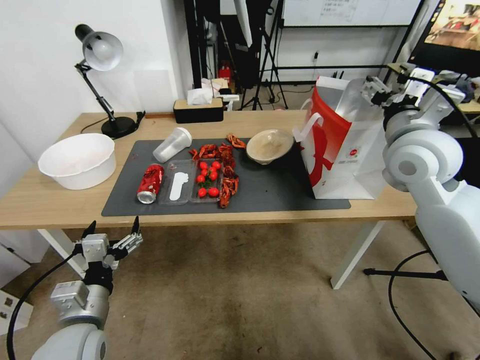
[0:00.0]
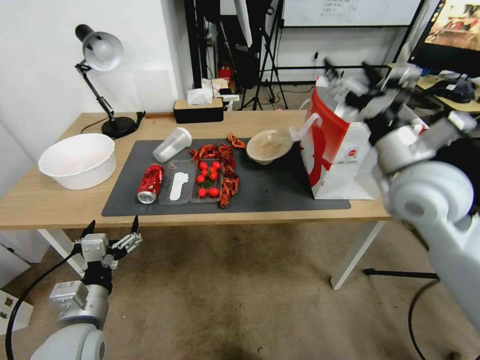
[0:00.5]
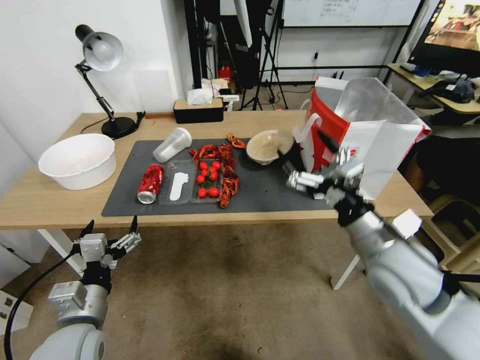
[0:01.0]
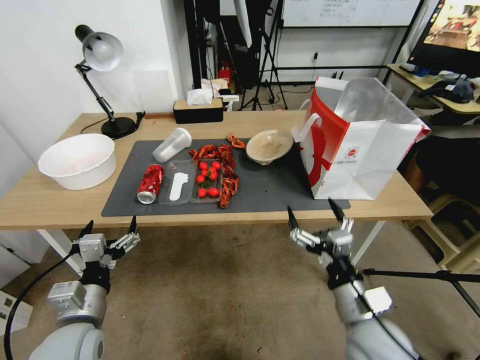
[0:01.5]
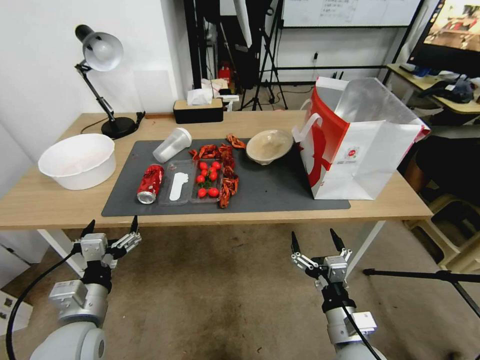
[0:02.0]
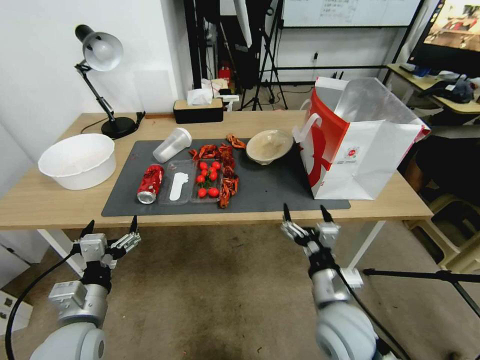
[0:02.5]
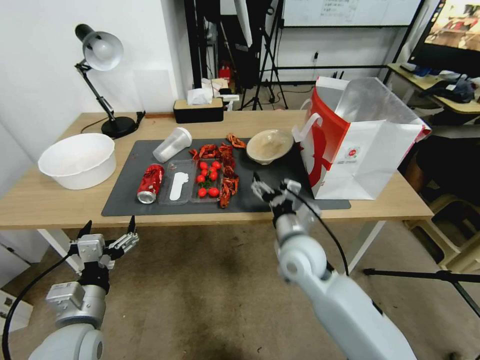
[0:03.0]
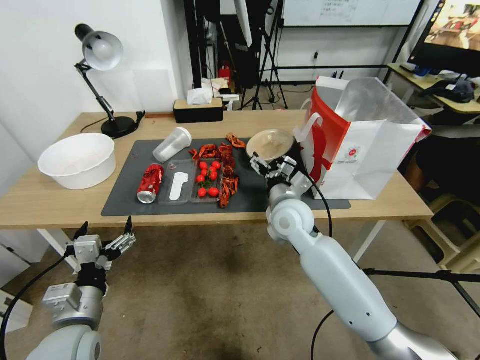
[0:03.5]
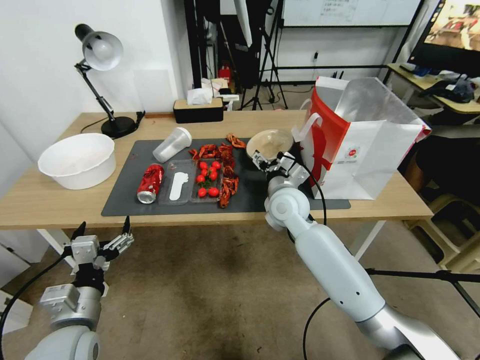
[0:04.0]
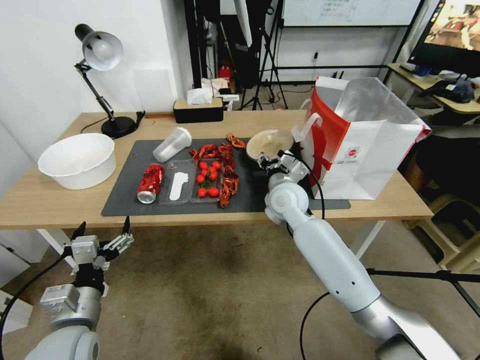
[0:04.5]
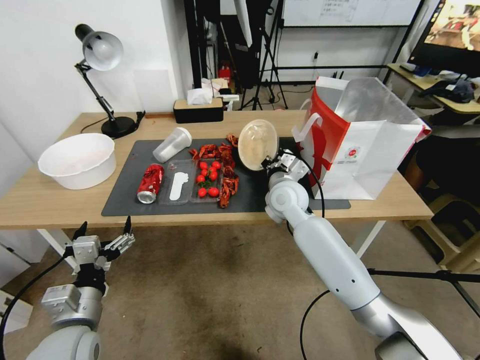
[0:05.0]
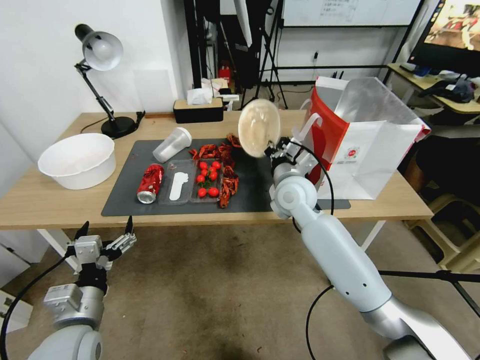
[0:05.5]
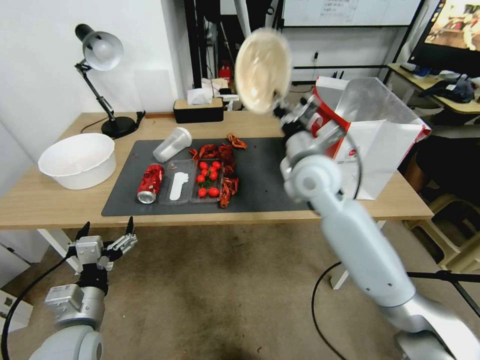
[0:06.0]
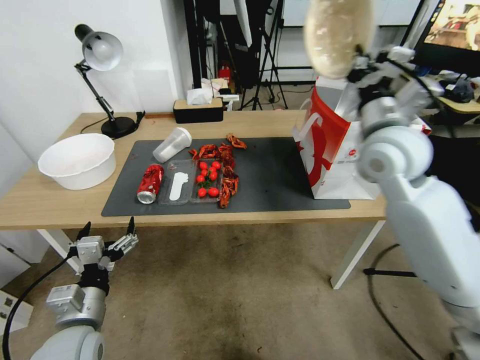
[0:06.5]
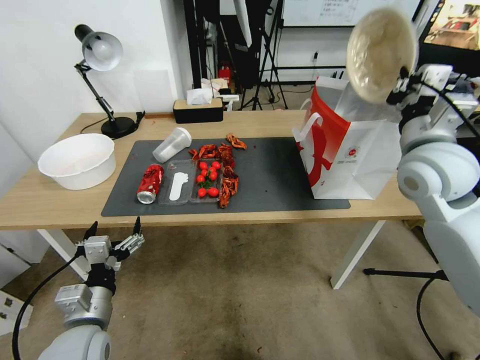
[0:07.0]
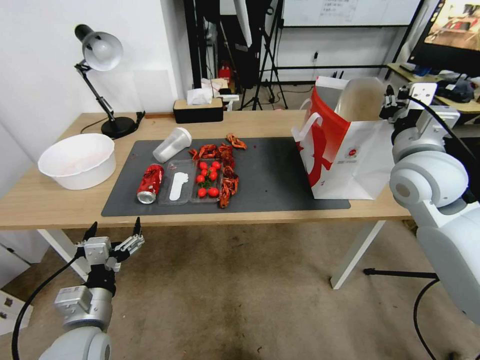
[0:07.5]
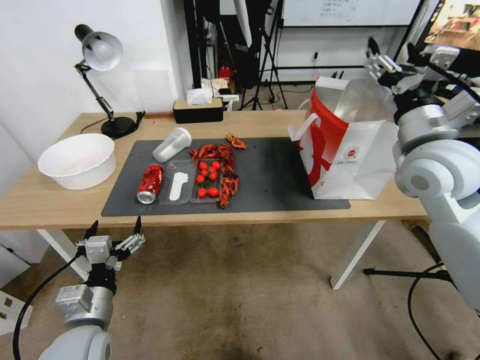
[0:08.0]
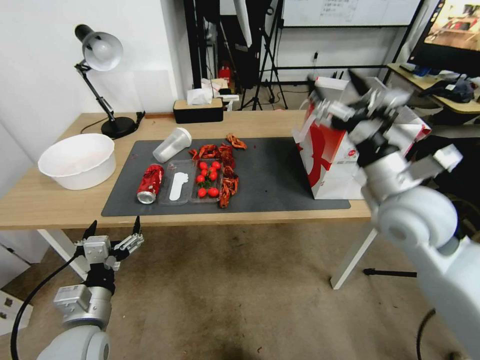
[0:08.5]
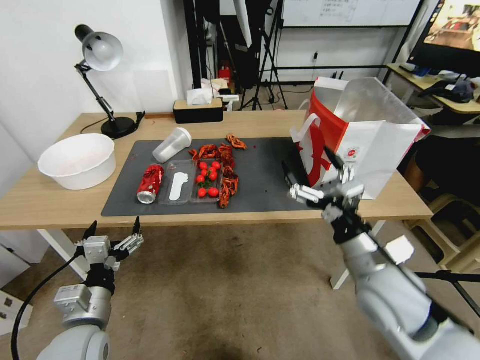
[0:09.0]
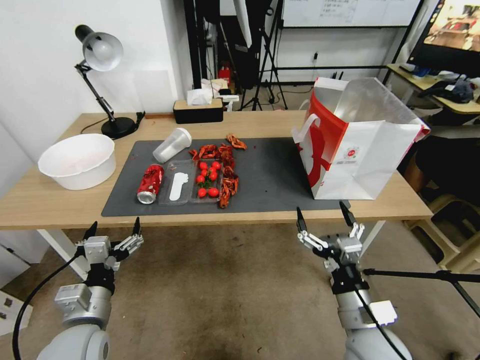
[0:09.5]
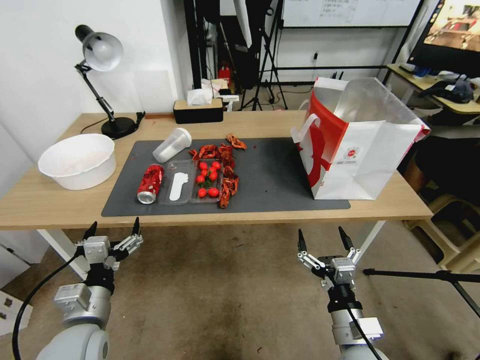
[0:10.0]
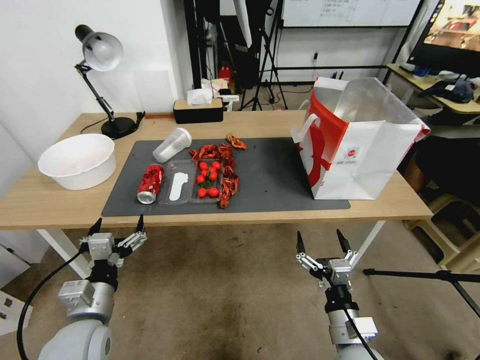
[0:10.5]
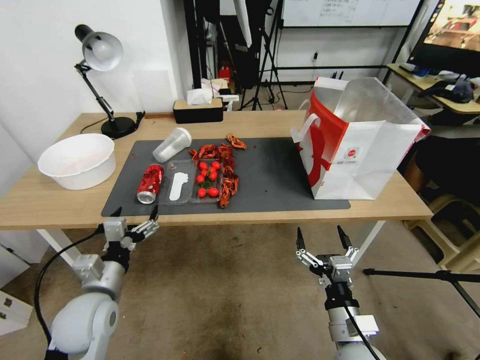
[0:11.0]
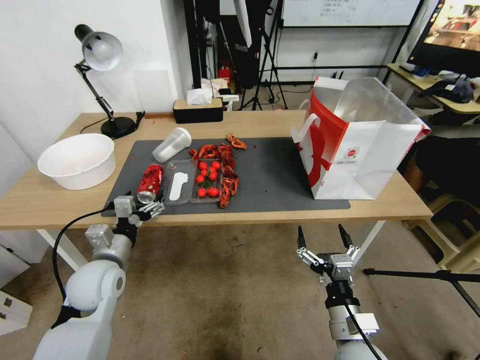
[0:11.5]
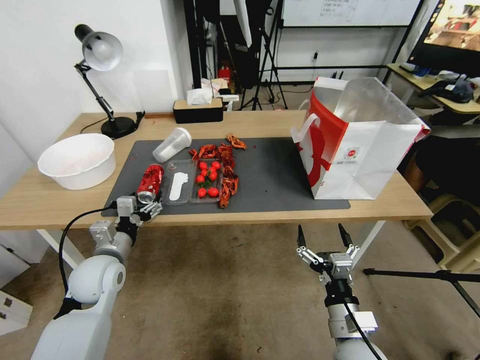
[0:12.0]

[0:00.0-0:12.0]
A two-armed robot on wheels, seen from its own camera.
0:00.0 to 0:02.0: The right gripper is displaced downward and backward by roughly 40 cm.
0:02.0 to 0:04.0: The right gripper moves forward, some 30 cm.
0:04.0 to 0:06.0: The right gripper is displaced upward by approximately 10 cm, and closes.
0:06.0 to 0:08.0: The right gripper travels to the right by some 15 cm, and opens its fingers.
0:08.0 to 0:10.0: The right gripper shifts roughly 35 cm downward and backward.
0:10.0 to 0:12.0: The left gripper moves forward, some 15 cm.

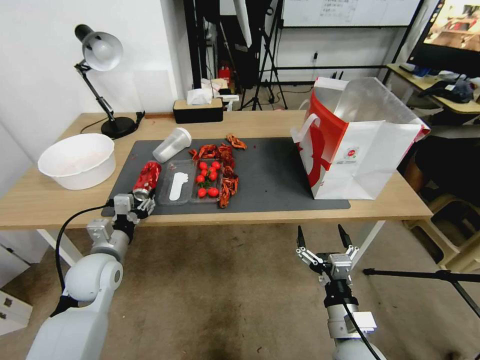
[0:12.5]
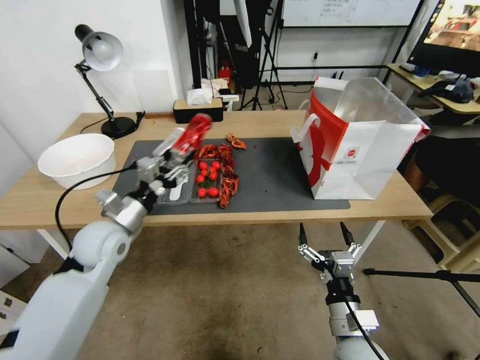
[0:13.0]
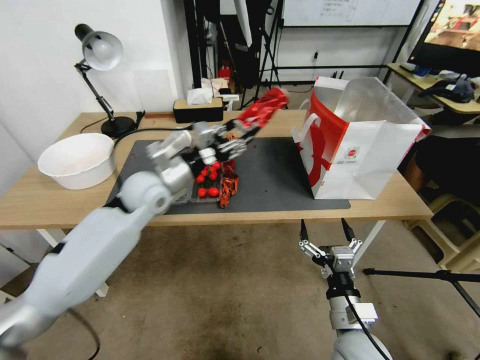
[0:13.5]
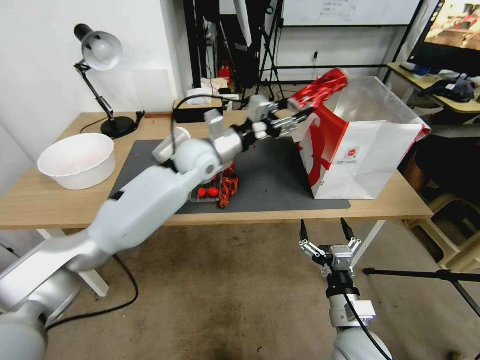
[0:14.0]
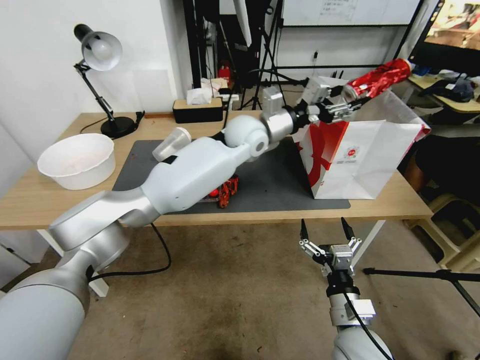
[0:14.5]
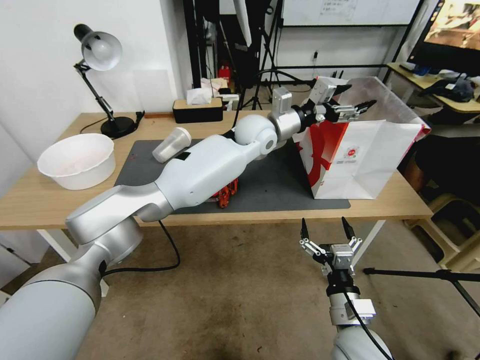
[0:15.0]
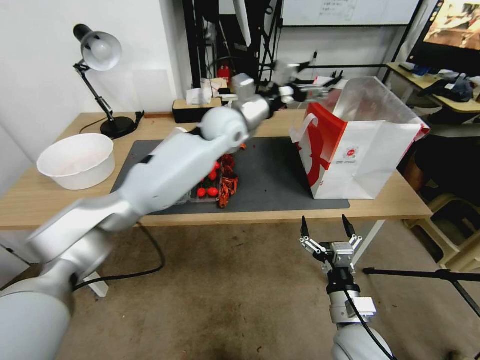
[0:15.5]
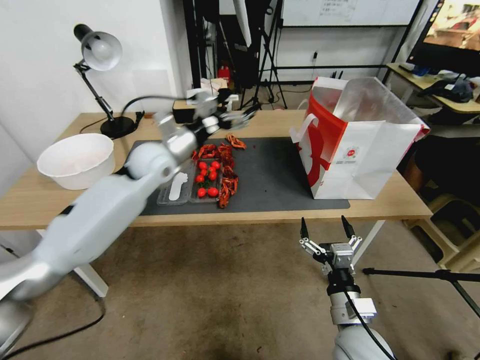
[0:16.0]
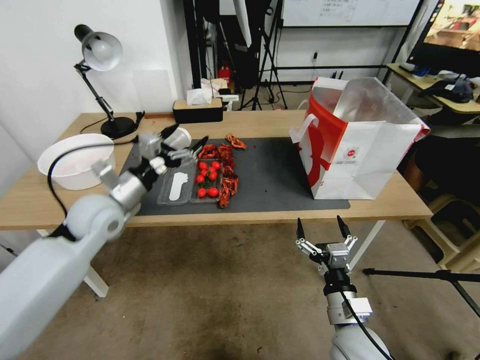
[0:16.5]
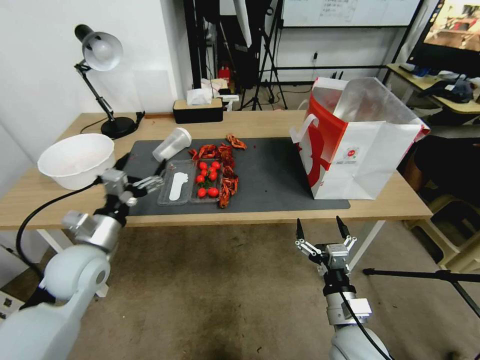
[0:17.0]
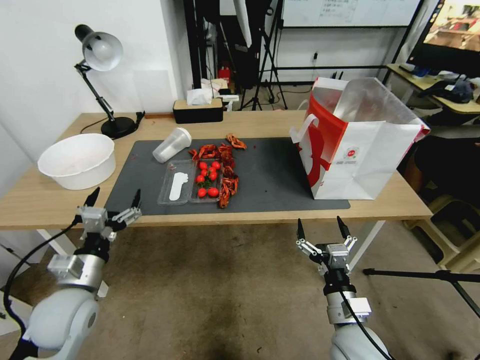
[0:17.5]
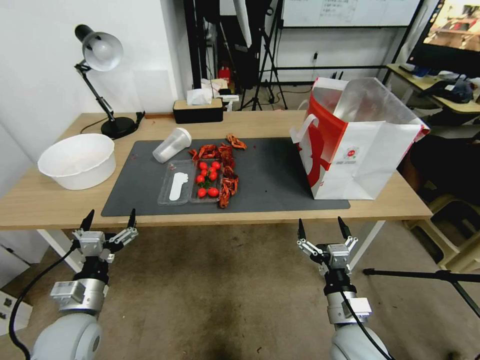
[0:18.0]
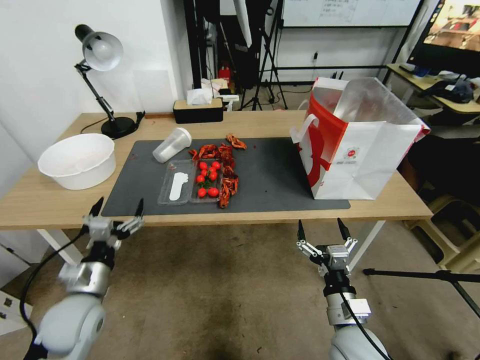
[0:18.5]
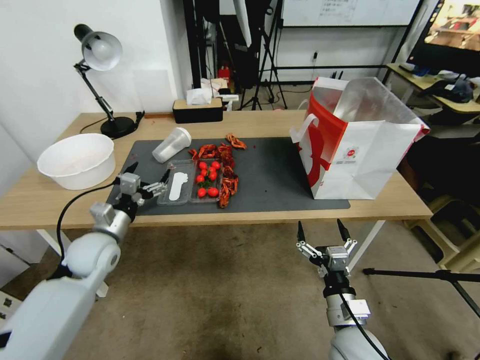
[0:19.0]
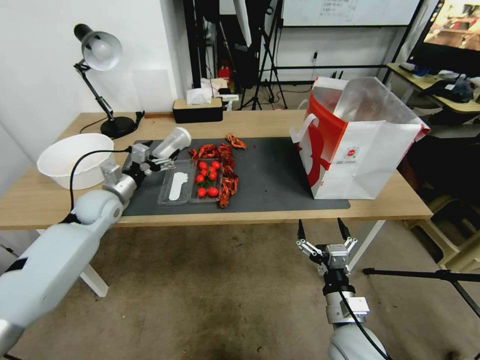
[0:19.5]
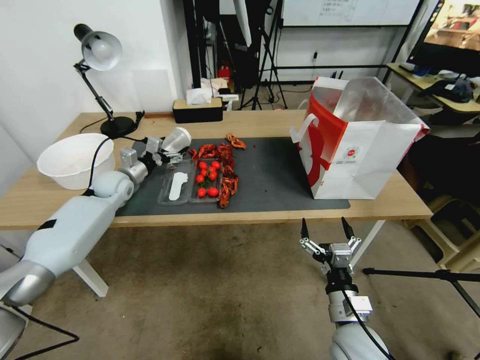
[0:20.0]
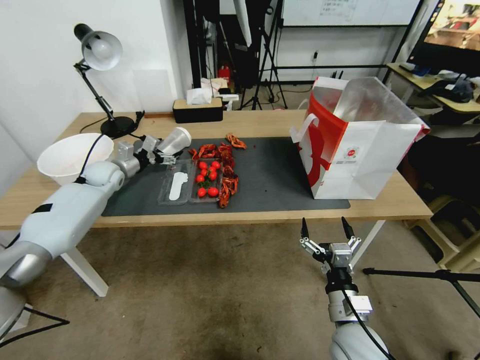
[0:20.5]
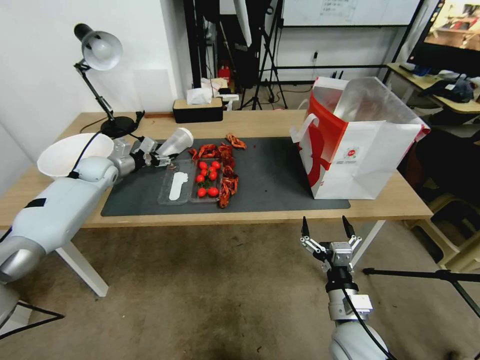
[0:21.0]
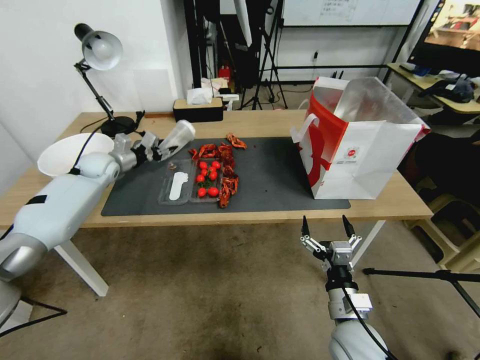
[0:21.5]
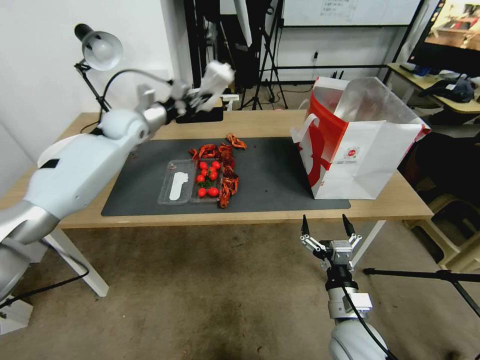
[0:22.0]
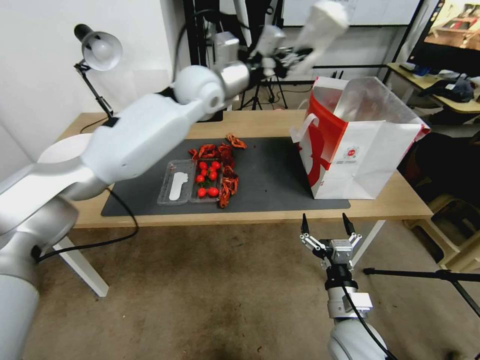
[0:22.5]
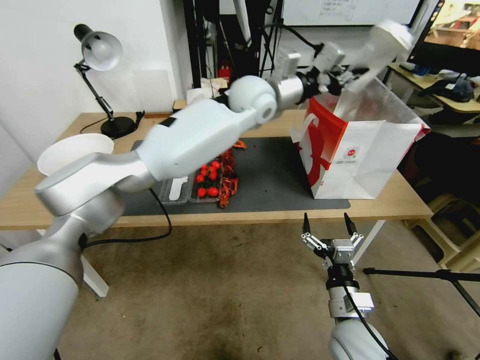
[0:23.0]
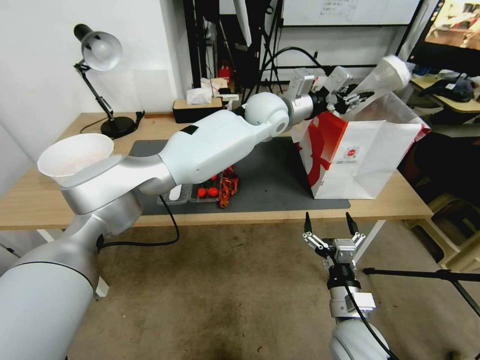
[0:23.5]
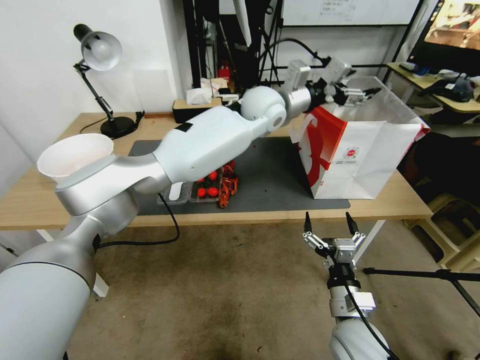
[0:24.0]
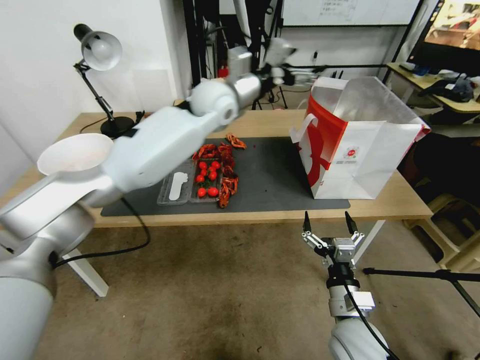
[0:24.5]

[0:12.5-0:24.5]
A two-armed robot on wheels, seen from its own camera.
0:12.5 to 0:14.5: The left gripper shifts some 40 cm to the right, forward and upward.
0:14.5 to 0:16.5: The left gripper is displaced to the left and backward by roughly 35 cm, and opens up.
0:16.5 to 0:18.5: The left gripper heads backward and downward, covering some 20 cm.
0:18.5 to 0:20.5: The left gripper heads forward, covering approximately 35 cm.
0:20.5 to 0:22.5: The left gripper shifts approximately 40 cm to the right and upward, and closes.
0:22.5 to 0:24.5: The left gripper heads to the right, covering approximately 10 cm, and opens up.

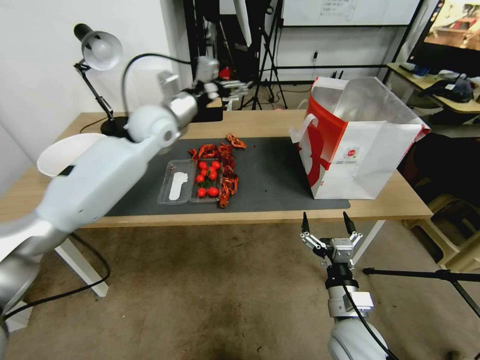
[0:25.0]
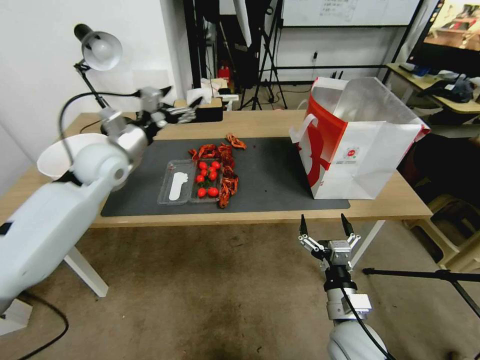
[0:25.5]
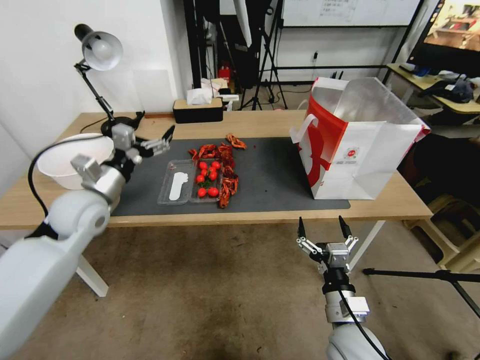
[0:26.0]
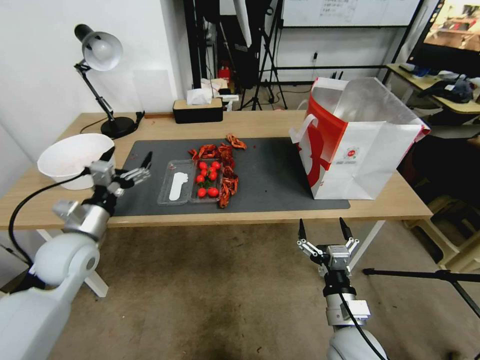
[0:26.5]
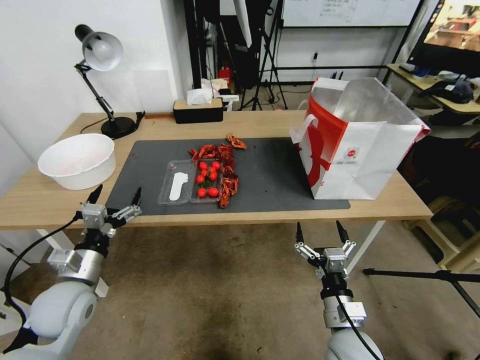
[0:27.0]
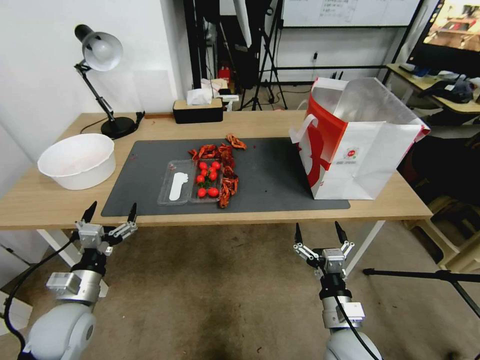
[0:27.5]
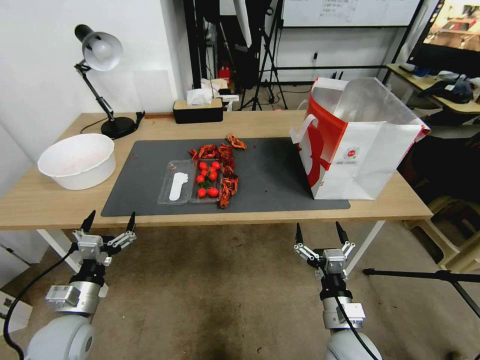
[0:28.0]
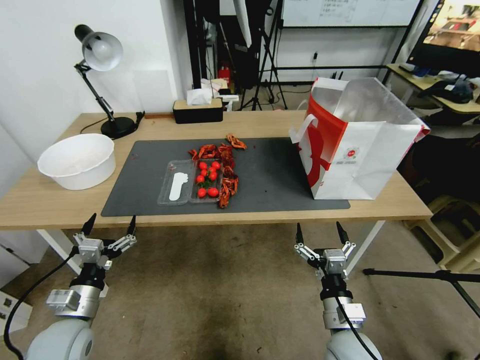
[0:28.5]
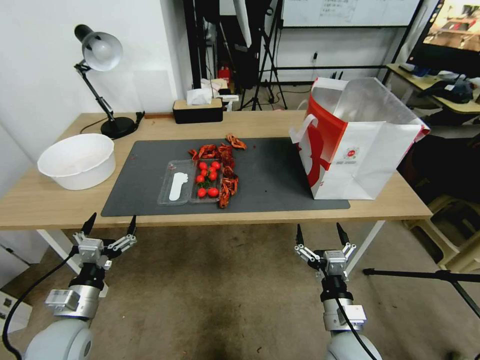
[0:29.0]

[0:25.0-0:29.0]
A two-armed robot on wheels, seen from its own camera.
0:25.0 to 0:27.0: The left gripper goes roughly 35 cm backward, downward and to the left.
0:27.0 to 0:29.0: The left gripper travels downward and backward by roughly 10 cm.
